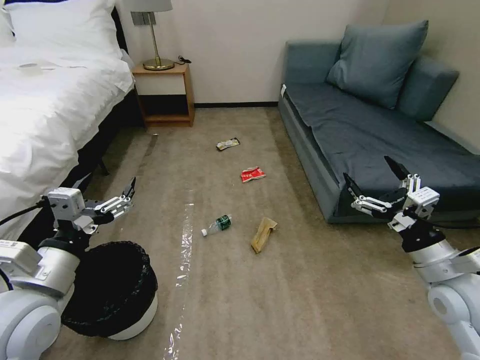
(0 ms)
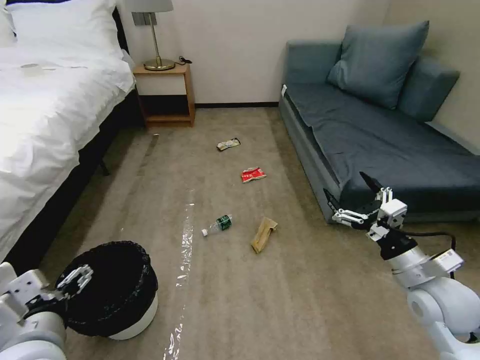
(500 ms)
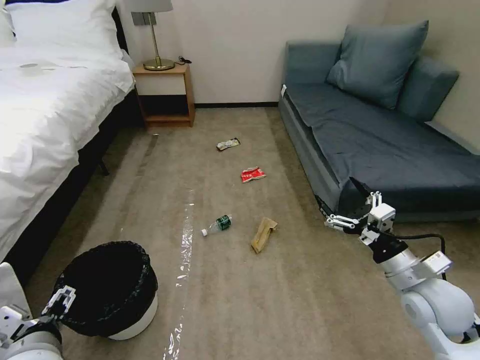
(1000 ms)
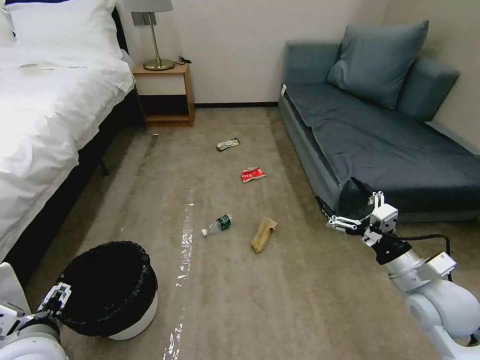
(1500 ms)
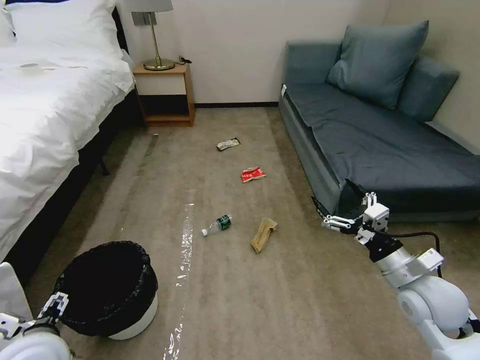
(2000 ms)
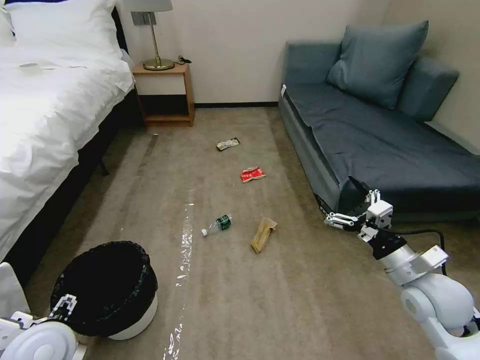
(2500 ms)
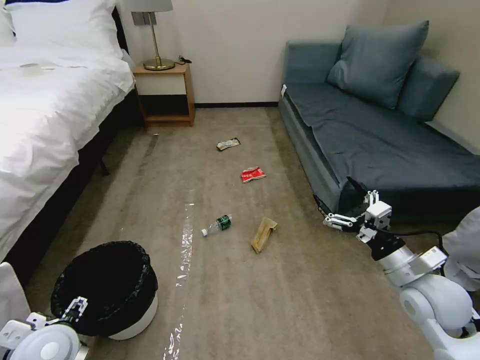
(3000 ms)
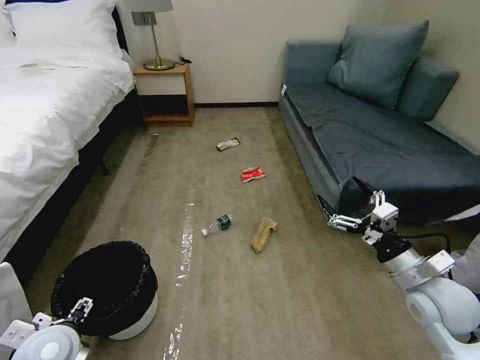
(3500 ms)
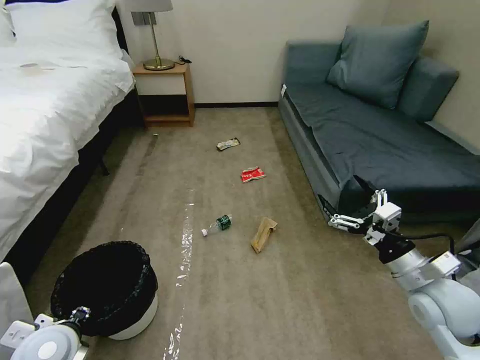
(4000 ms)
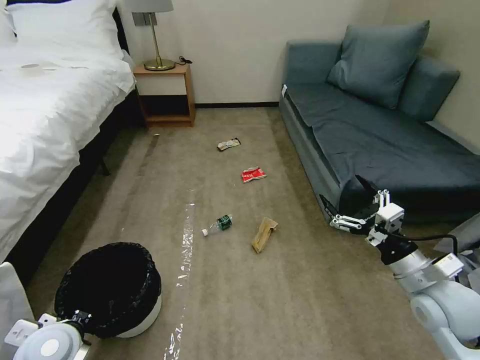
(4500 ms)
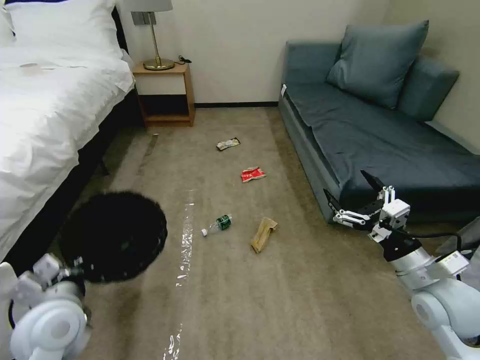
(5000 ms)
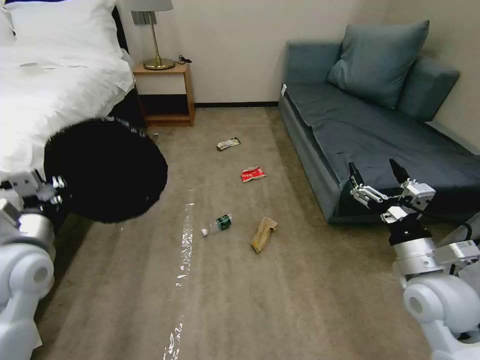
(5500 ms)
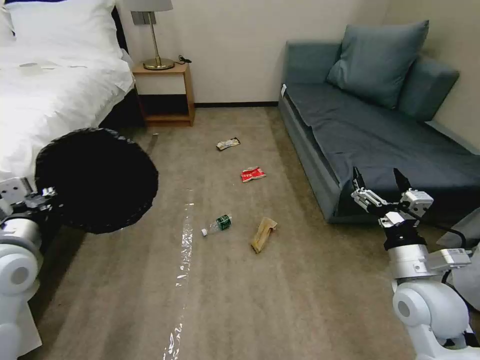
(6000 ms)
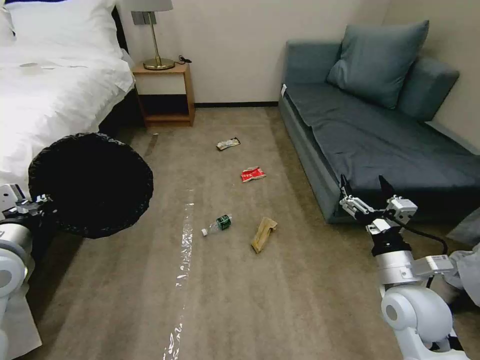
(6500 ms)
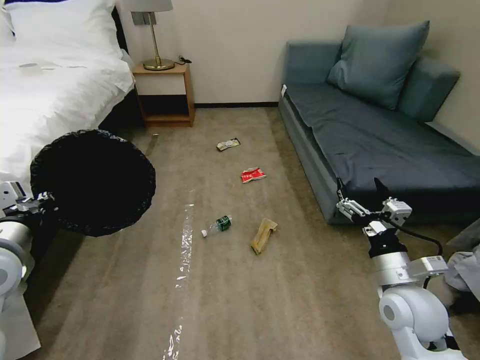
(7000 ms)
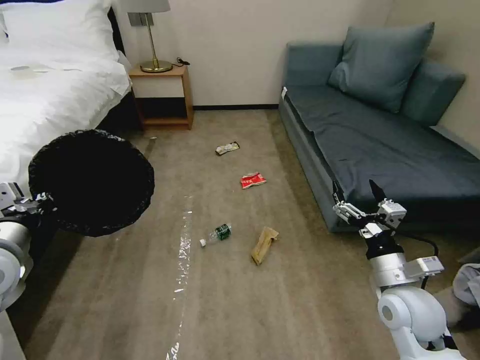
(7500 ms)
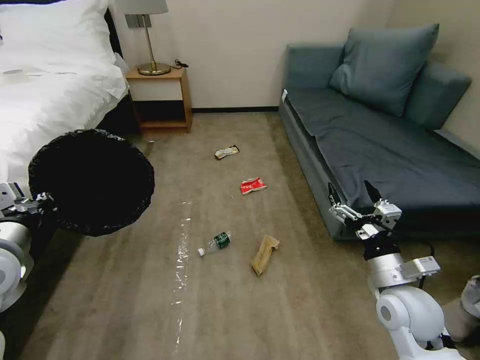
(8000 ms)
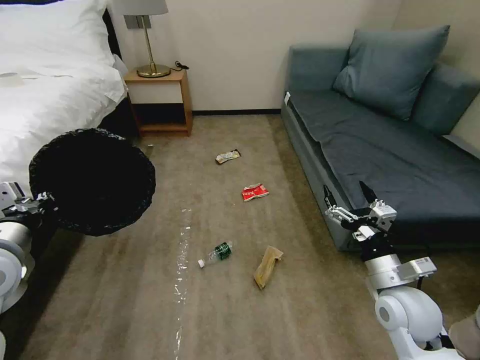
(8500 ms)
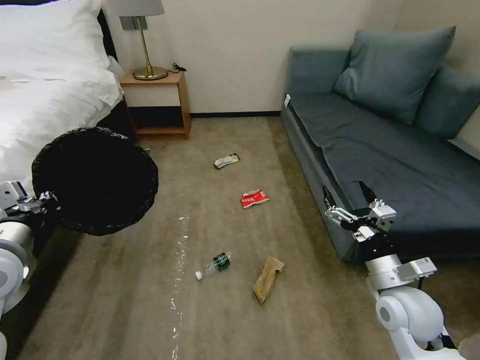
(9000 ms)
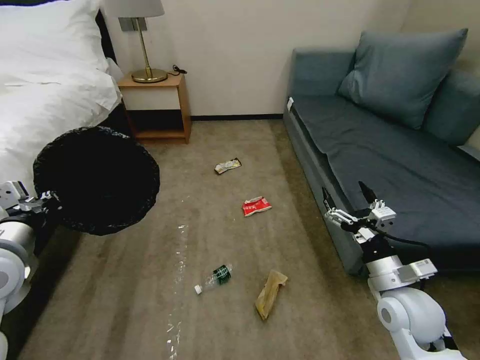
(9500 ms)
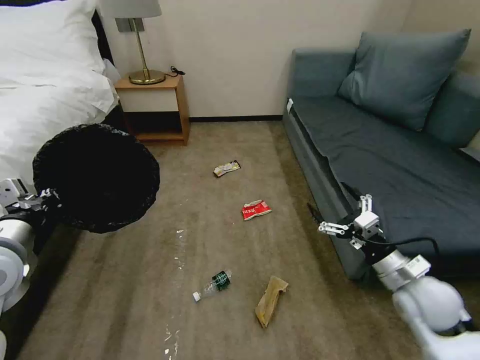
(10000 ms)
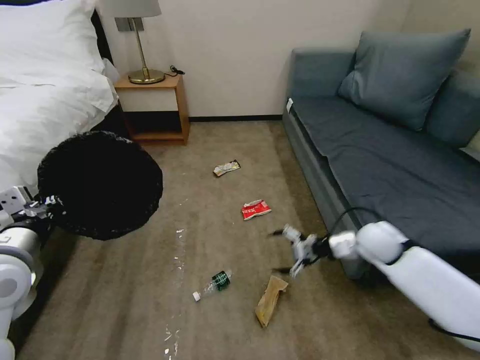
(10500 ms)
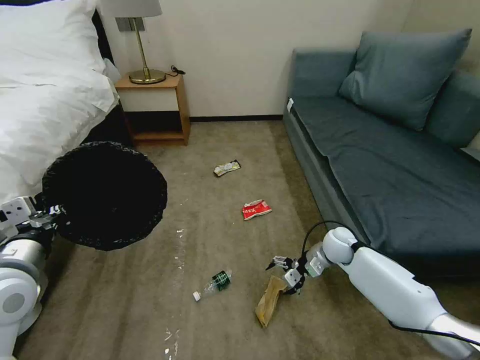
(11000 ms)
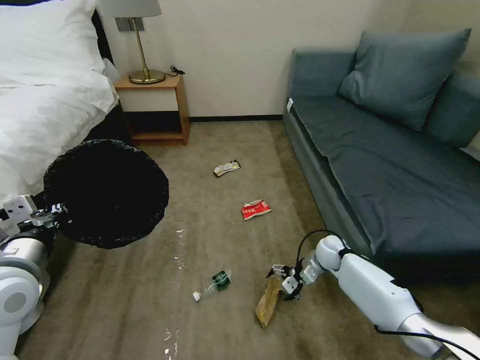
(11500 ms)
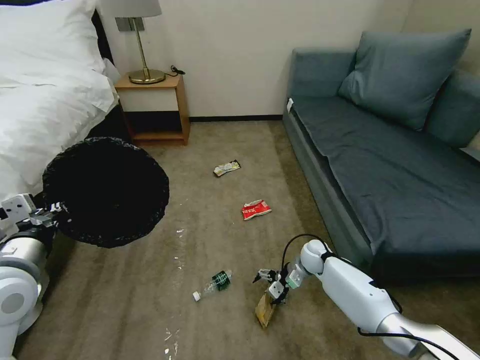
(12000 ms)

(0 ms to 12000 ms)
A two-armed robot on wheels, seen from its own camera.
Task of the whole recording: Pick up the trash bin, then pick up the garbage on the floor and place it into the trash bin.
2000 ms - 4000 ms: The left gripper travels downward by about 10 cm, and closes its fingers.
4000 ms - 6000 ms: The left gripper heads upward and forward, covering roughly 15 cm, and closes its fingers.
8000 ms - 10000 ms: The right gripper heads to the right, covering about 5 cm.
10000 ms - 12000 ms: The right gripper heads downward, forward and to the left, covering approximately 30 cm.

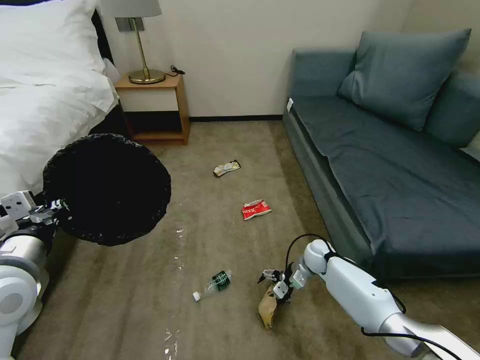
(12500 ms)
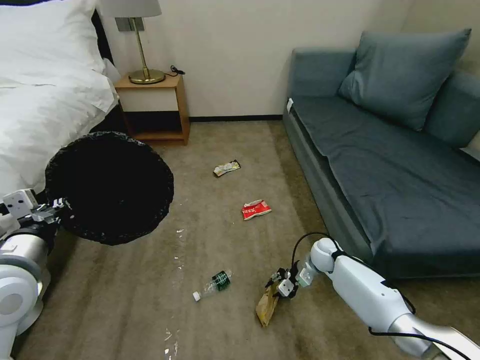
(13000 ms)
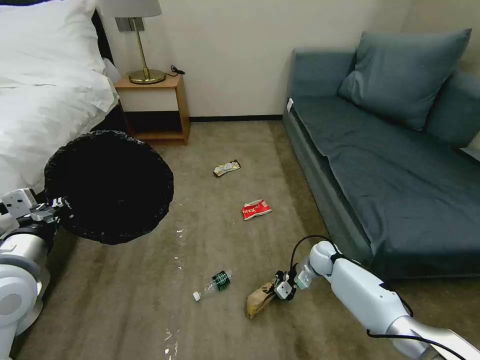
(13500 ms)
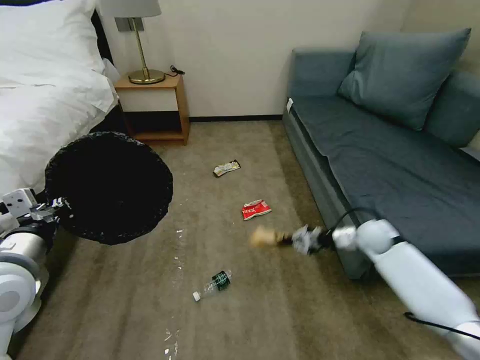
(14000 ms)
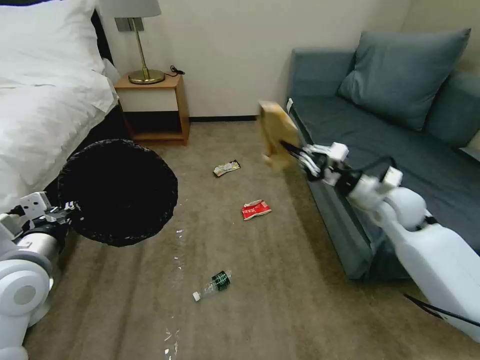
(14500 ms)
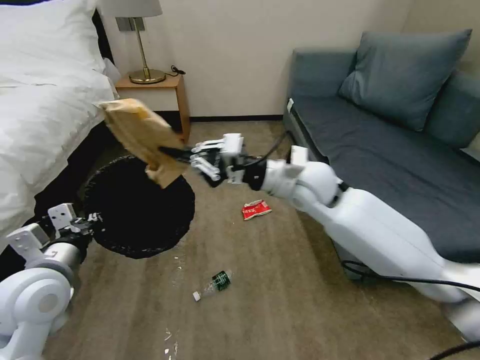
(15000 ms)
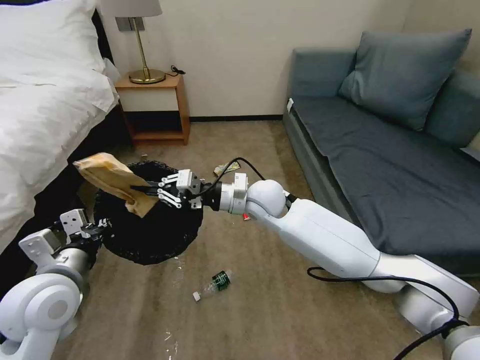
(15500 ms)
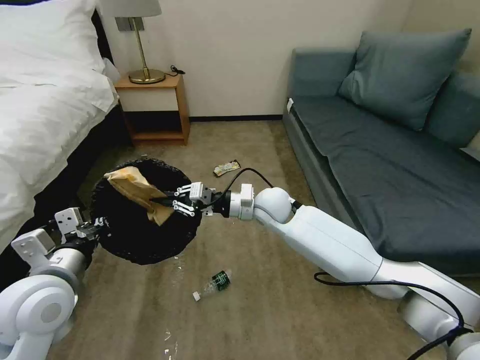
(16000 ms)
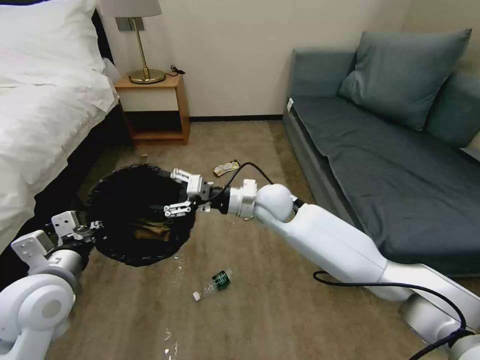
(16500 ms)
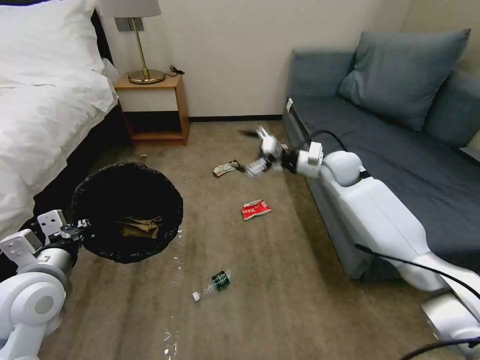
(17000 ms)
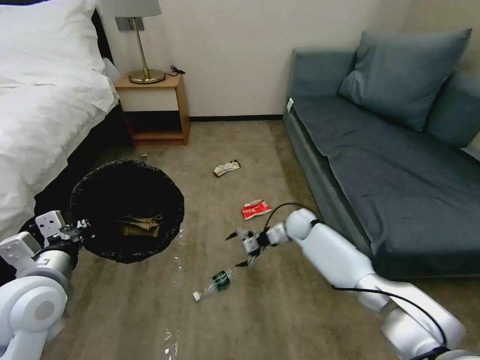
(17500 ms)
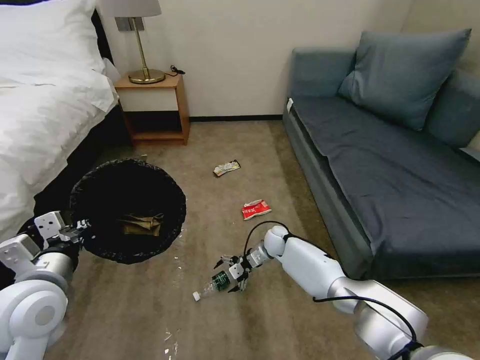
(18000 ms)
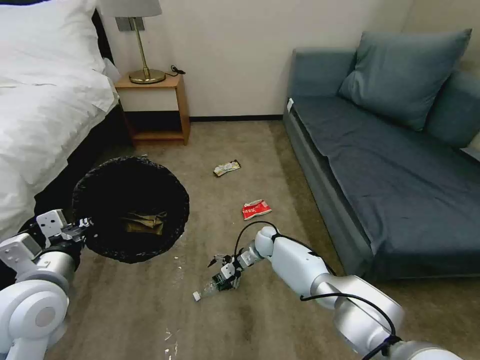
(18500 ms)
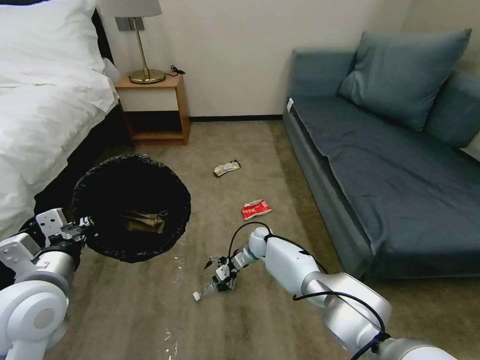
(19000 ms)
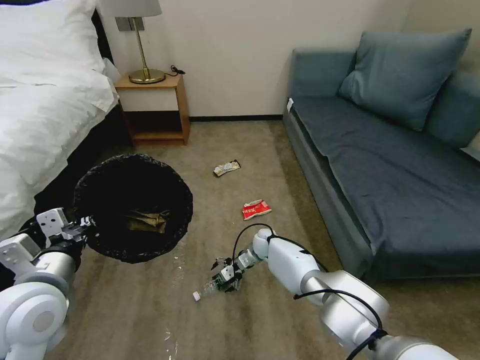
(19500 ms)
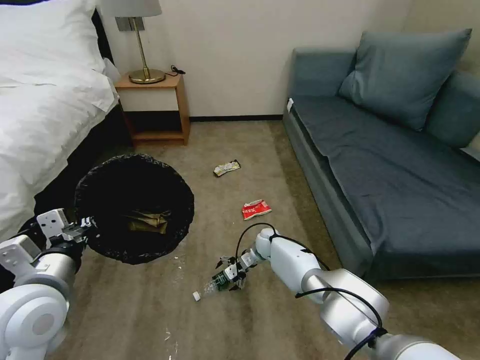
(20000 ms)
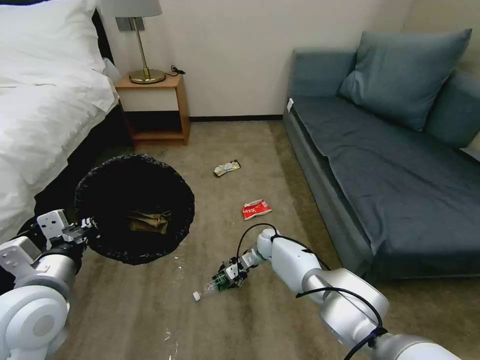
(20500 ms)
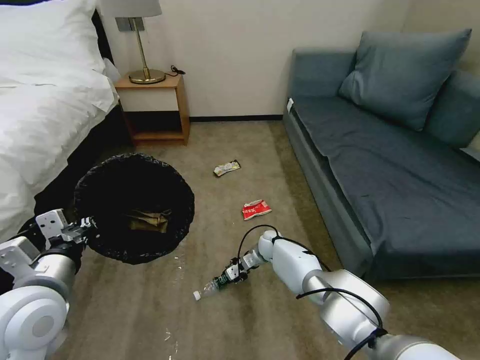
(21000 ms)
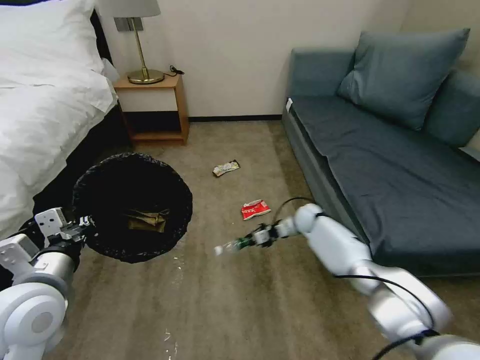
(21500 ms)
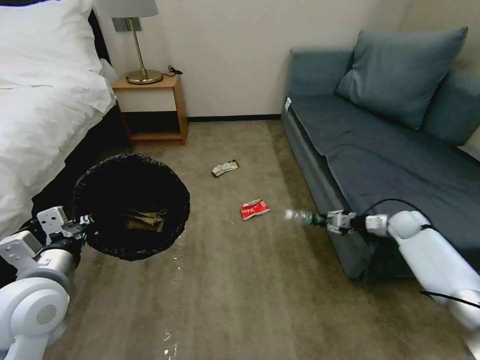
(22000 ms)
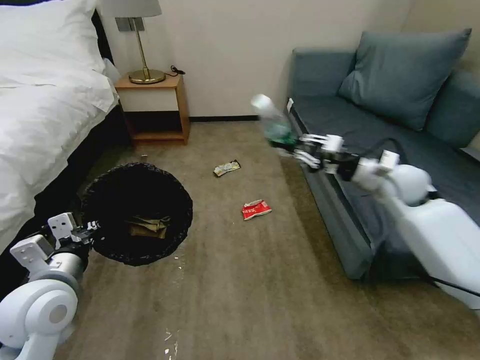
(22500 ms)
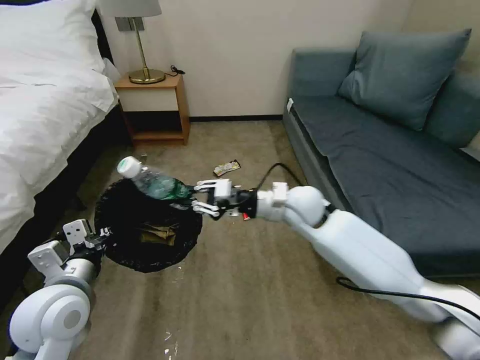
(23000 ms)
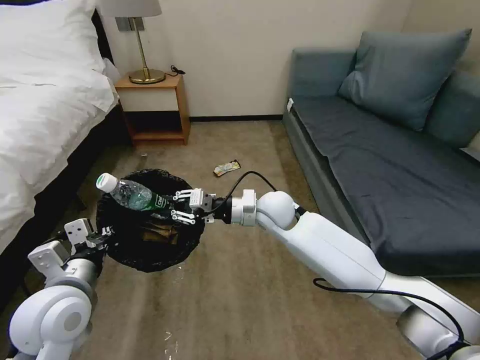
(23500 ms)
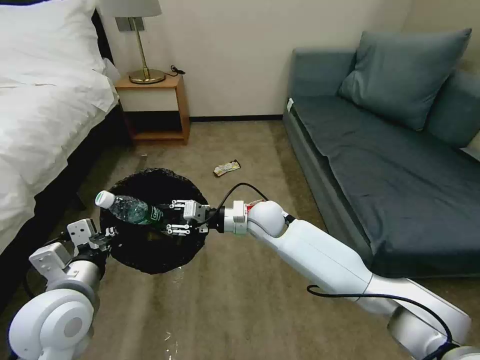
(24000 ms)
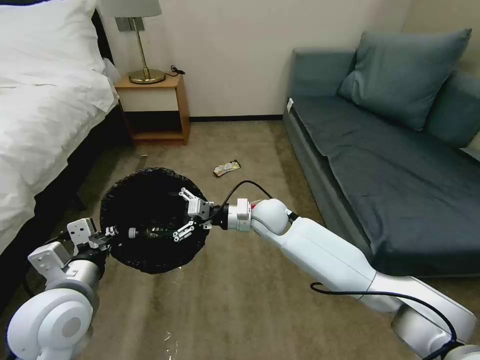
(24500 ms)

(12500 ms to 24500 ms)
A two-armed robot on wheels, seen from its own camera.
Task of the whole recording: Pick up the trash bin, then pick up the garbage on the floor and place it into the trash bin.
12500 ms - 14500 ms: The right gripper shifts approximately 30 cm upward, and closes up.
14500 ms - 16500 ms: The right gripper shifts approximately 25 cm to the left, and opens.
16500 ms - 18500 ms: The right gripper travels downward by approximately 25 cm, and opens up.
18500 ms - 20500 ms: The grippers move only a little.
20500 ms - 22500 ms: The right gripper heads upward and to the right, covering about 40 cm, and closes its fingers.
22500 ms - 24500 ms: The right gripper travels to the left and downward by about 30 cm, and opens its fingers.

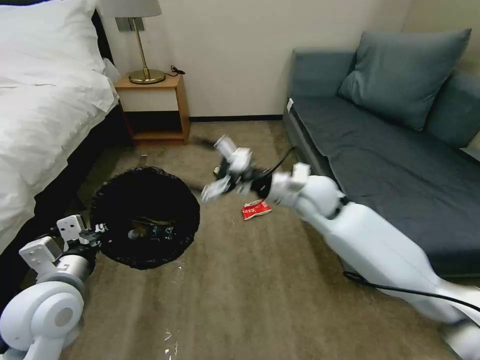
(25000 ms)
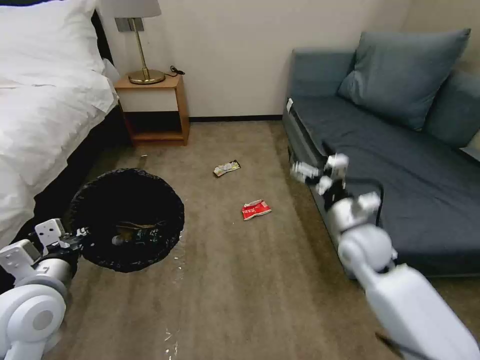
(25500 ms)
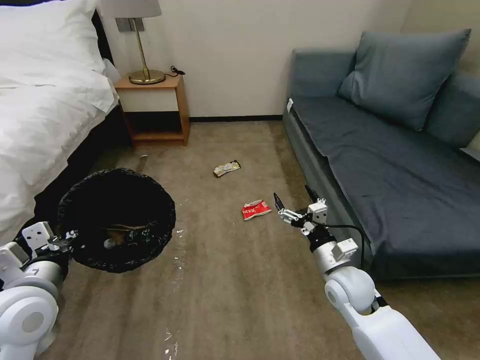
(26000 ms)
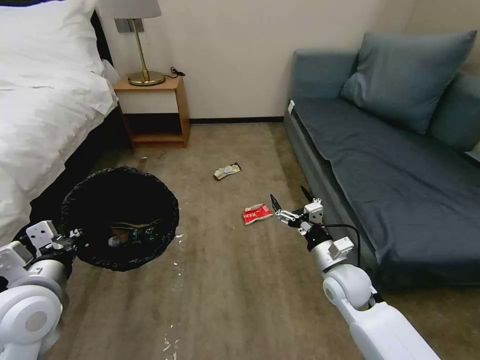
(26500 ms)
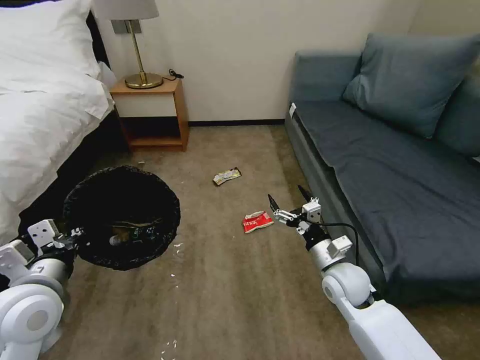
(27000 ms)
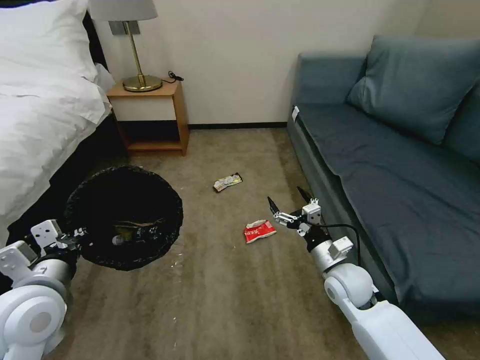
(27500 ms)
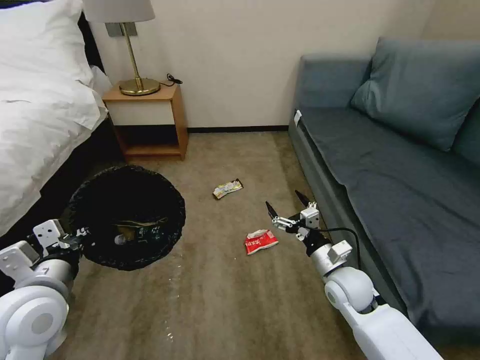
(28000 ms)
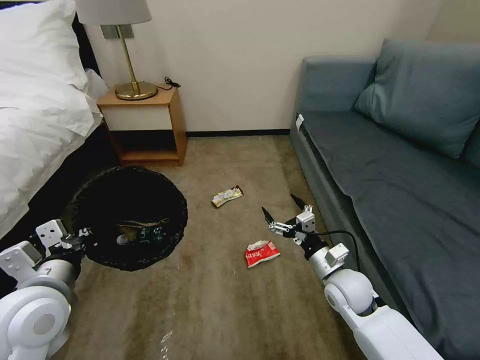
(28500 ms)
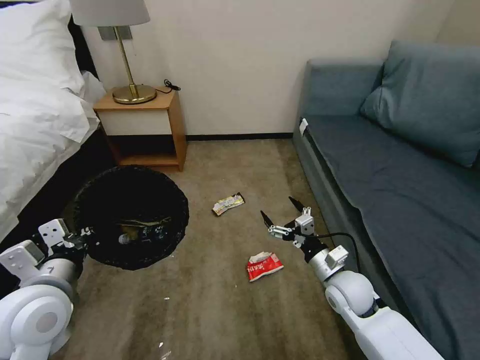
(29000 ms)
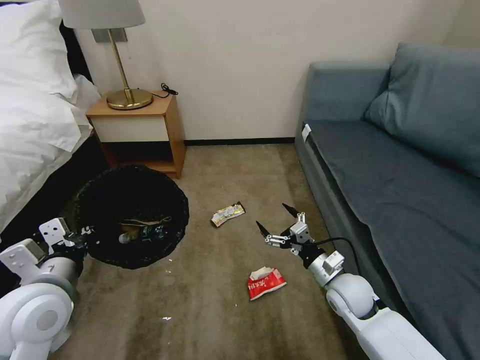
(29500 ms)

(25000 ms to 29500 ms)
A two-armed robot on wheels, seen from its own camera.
Task of the whole recording: Pick up the trash bin, then pick up the garbage on the floor and place it into the trash bin.
25000 ms - 27000 ms: The right gripper heads downward, backward and to the right, covering approximately 20 cm.